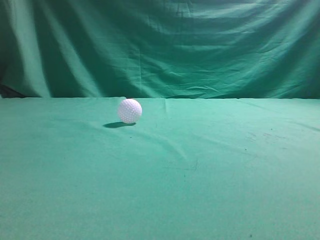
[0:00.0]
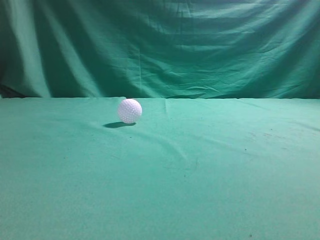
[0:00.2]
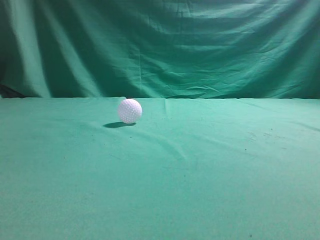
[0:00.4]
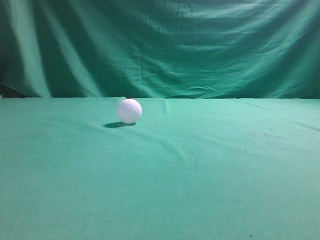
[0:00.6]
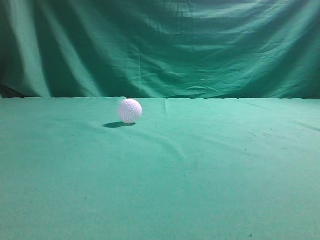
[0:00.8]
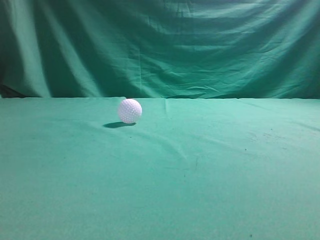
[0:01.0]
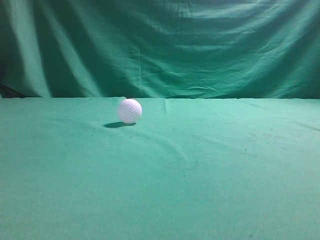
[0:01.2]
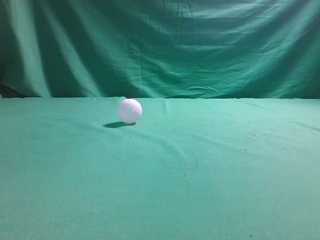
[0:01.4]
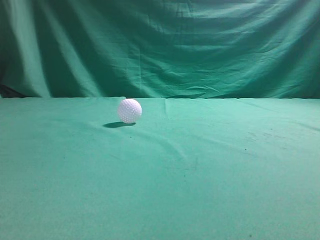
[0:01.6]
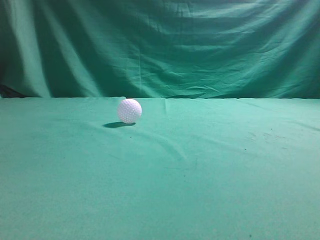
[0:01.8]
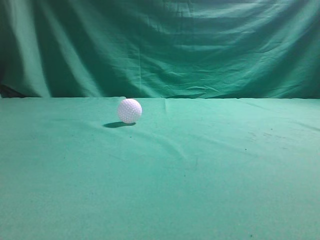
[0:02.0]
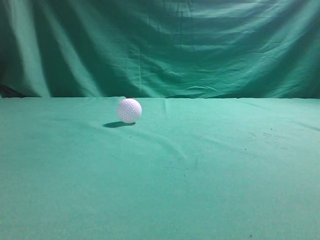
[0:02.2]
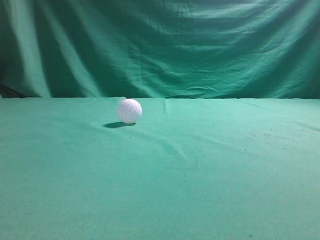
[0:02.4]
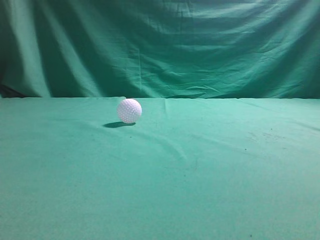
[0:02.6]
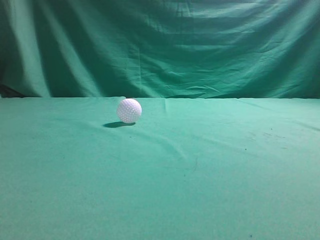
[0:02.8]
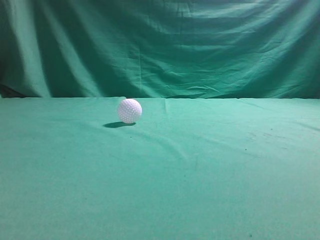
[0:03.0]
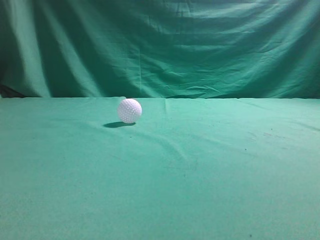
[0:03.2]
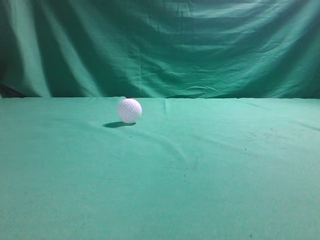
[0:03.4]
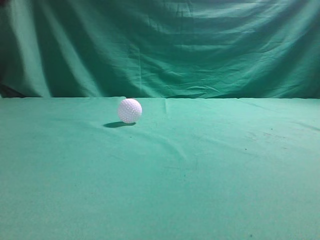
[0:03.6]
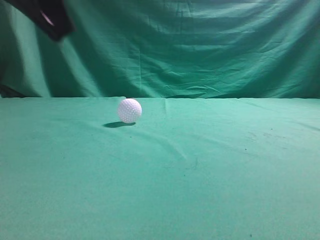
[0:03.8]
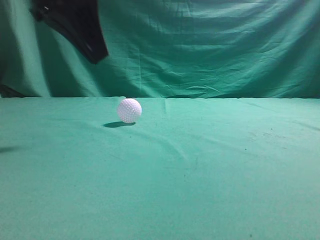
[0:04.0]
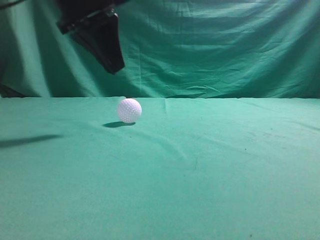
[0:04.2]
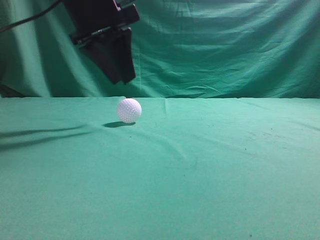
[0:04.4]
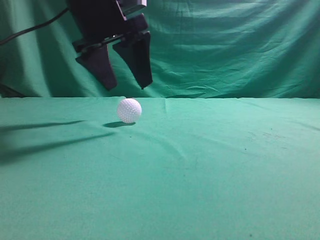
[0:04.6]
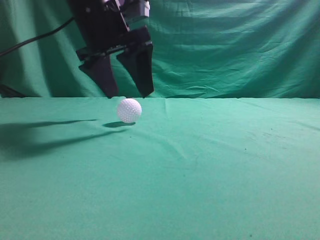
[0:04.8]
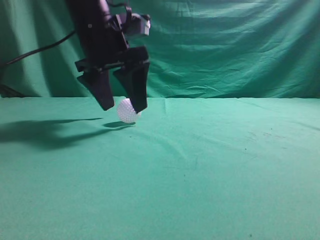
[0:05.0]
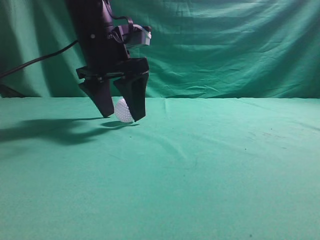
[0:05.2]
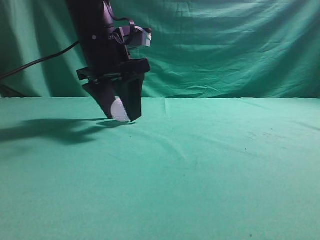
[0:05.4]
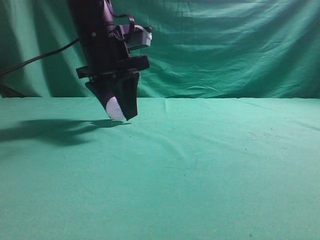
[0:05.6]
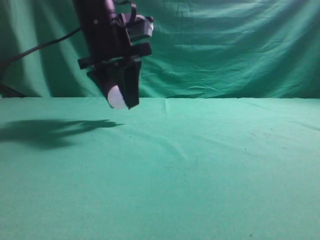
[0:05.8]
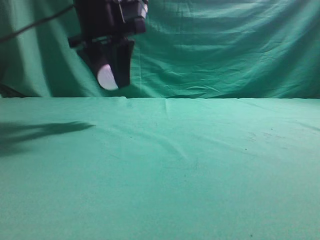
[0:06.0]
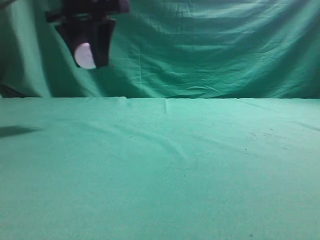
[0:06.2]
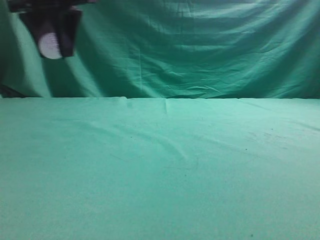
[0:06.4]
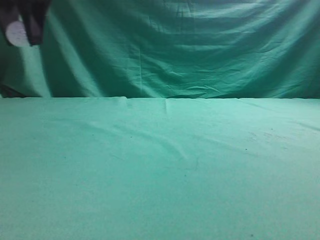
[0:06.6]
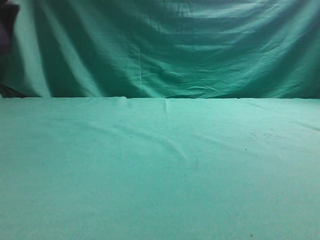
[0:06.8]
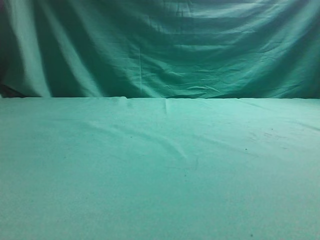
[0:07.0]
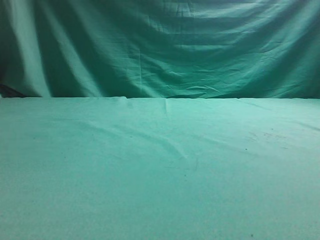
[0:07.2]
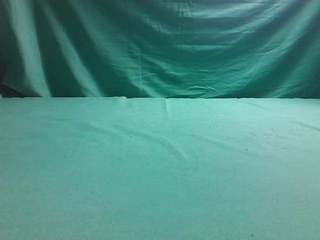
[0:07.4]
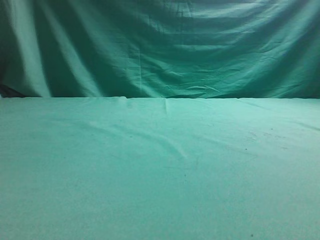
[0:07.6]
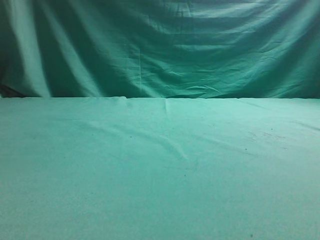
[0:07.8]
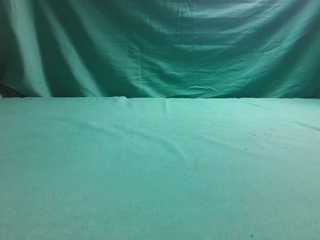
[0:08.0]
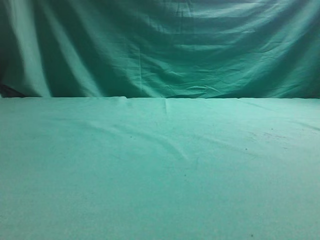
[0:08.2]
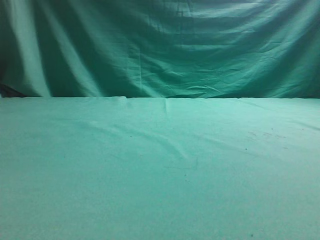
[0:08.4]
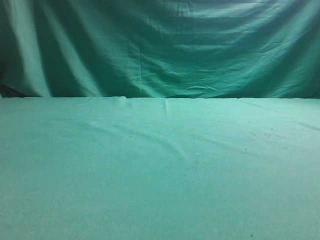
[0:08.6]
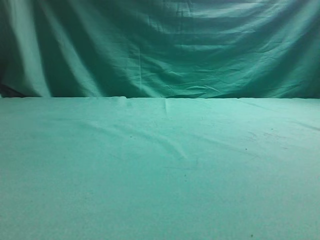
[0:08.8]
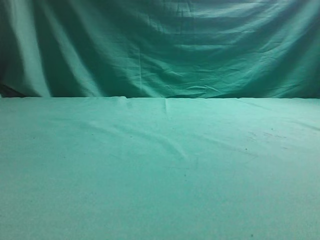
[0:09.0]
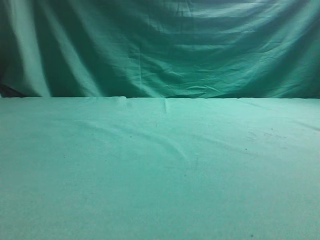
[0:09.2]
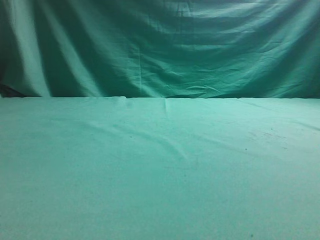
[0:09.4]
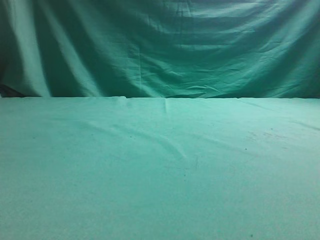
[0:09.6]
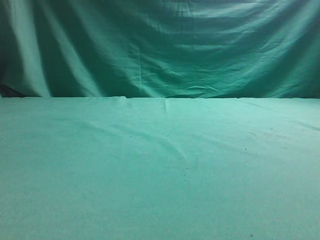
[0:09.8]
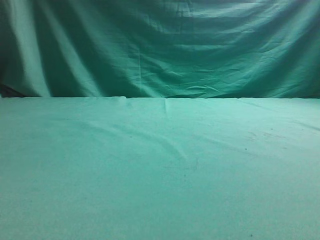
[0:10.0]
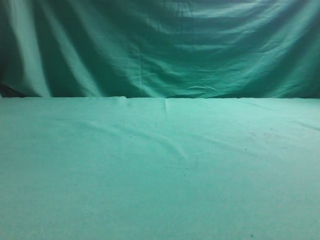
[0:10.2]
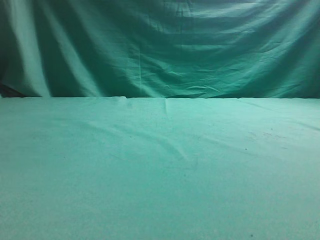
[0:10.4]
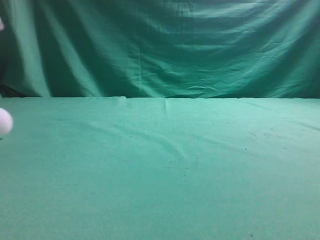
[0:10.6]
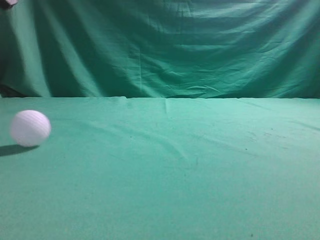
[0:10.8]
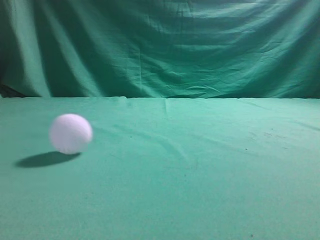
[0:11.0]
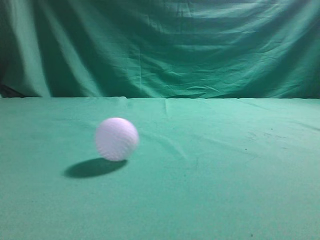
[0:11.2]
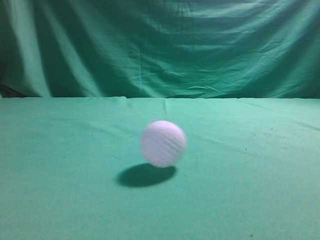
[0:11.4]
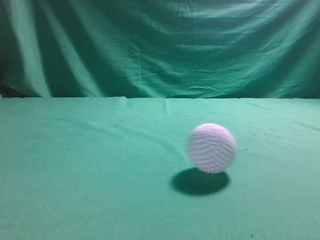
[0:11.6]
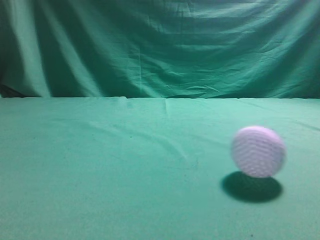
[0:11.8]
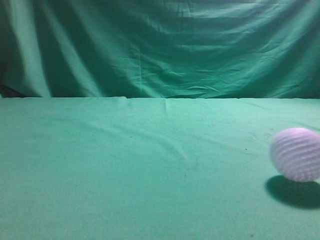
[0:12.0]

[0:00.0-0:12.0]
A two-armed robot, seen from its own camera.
Task of the whole recording: pick up the ball and place it on the plate, then pick up the ball from the plate and put it in the center of the table.
Step, 0:00.0 to 0:06.0: Grab the spherical object with your left arm.
Step, 0:06.2 to 0:10.0: Place the sphere on the white object.
0:03.0 to 0:04.4: The left gripper moves forward and to the right, roughly 30 cm, and opens.
0:04.4 to 0:06.0: The left gripper opens and closes again.
0:06.0 to 0:07.6: The left gripper heads to the left, covering approximately 25 cm.

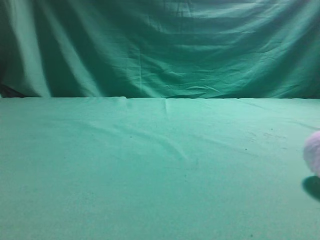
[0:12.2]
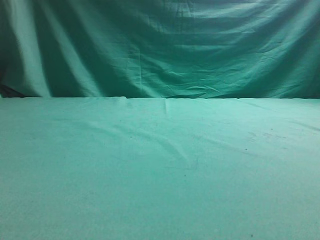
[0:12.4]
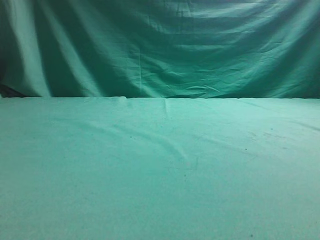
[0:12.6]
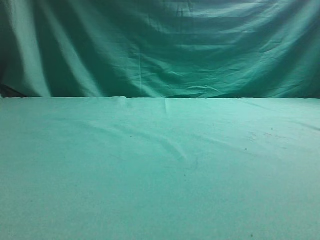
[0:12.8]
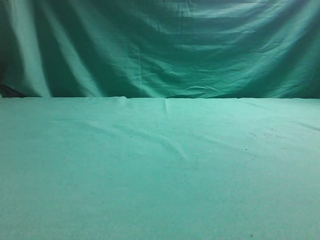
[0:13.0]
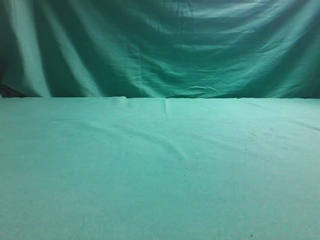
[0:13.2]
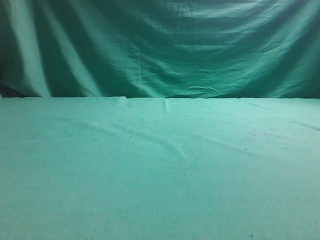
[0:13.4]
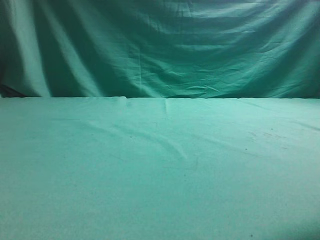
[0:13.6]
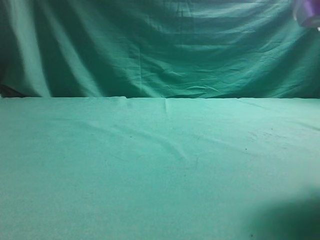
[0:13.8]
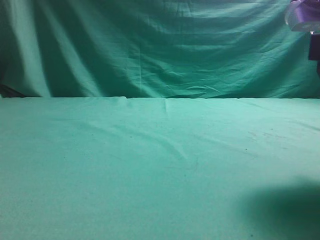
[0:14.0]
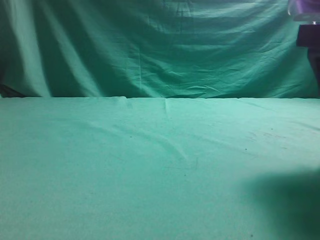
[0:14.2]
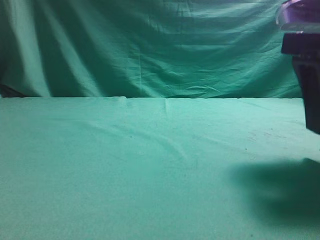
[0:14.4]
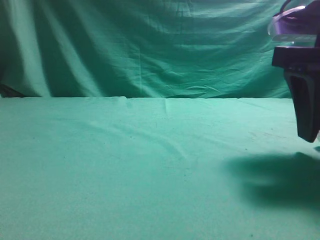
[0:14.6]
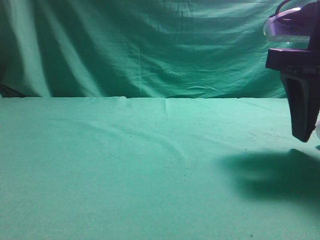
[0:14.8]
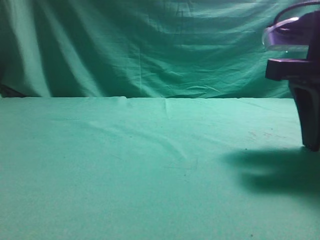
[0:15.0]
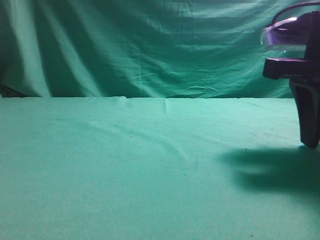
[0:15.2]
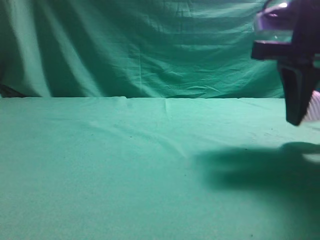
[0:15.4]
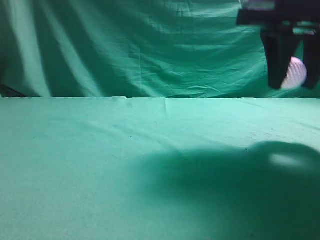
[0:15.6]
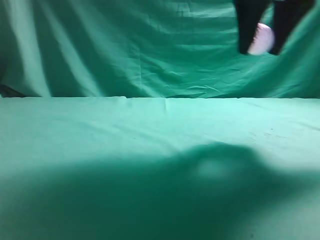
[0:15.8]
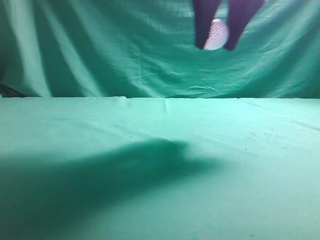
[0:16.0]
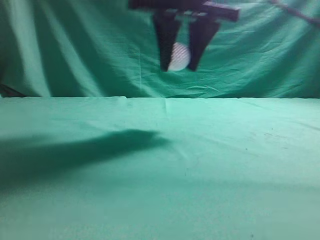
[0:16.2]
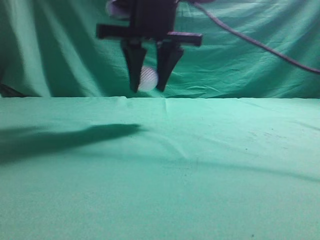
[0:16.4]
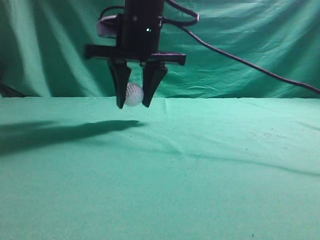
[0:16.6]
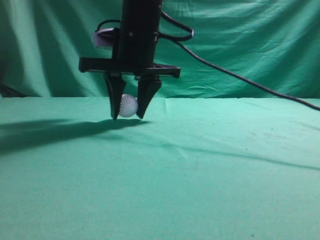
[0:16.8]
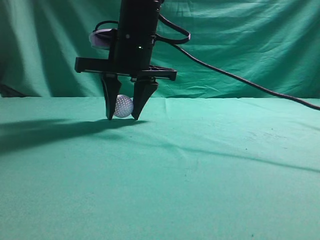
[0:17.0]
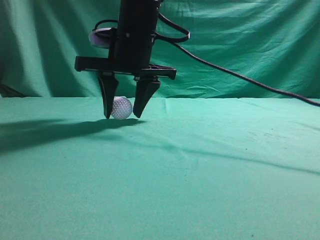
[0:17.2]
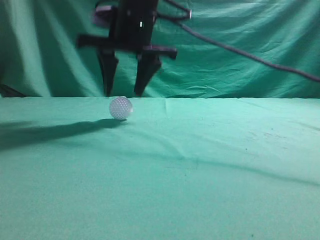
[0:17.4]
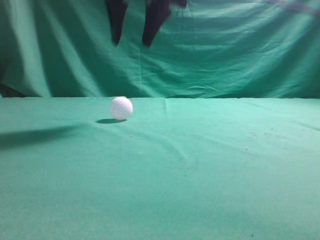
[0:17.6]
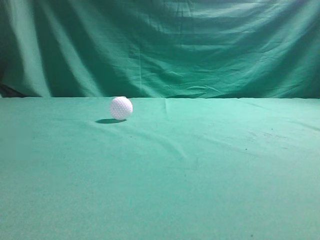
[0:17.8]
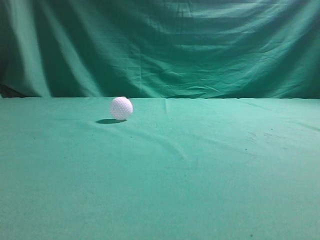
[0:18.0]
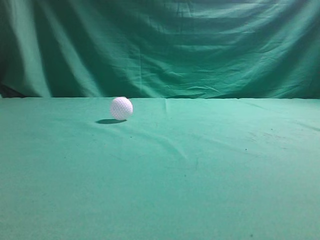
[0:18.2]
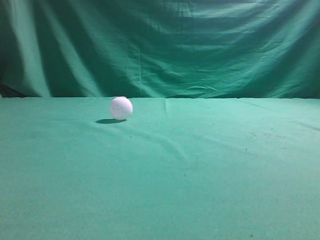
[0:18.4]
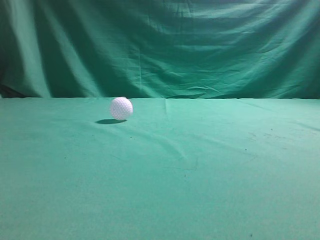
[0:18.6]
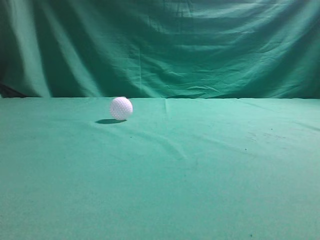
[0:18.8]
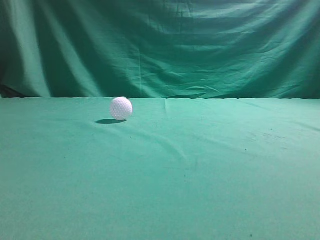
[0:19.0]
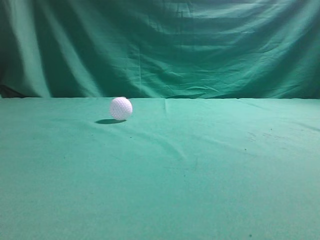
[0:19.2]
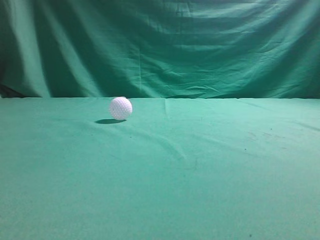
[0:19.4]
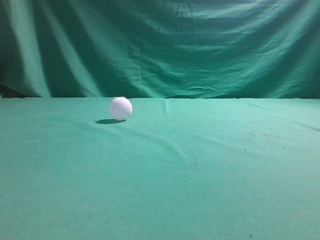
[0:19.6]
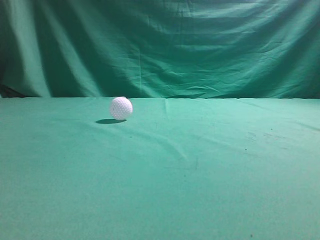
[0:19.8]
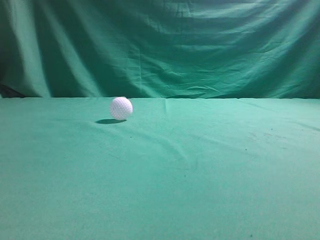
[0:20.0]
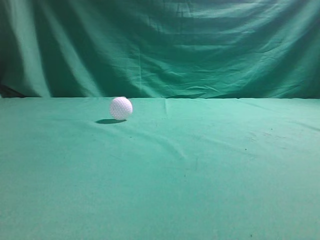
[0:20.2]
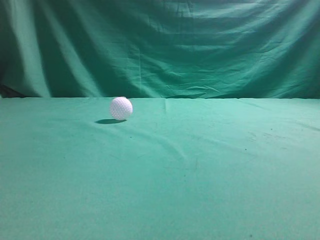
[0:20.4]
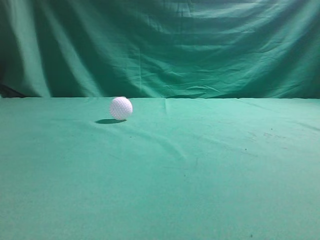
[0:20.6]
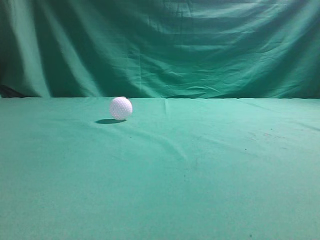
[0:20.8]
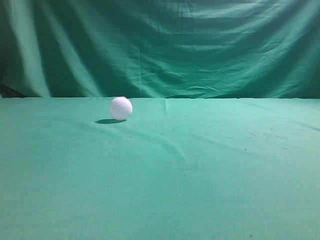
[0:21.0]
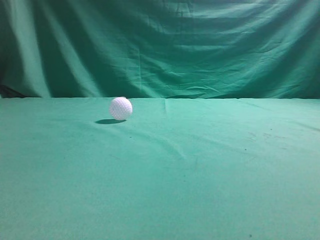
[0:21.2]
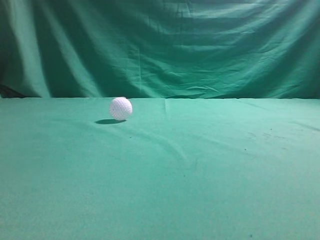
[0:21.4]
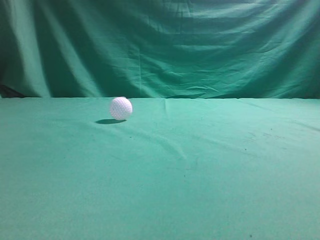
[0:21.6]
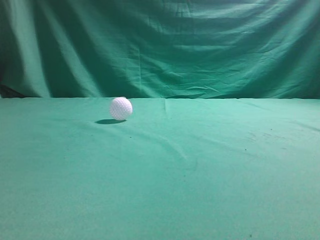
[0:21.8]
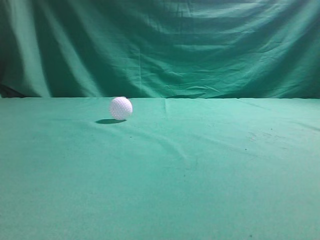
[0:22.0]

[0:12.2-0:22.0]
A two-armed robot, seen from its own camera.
Task of the whole recording: pick up the ball and place it on the plate, then pick up the ball from the plate and put it in the center of the table.
Step, 0:12.2 to 0:15.4: Grab the rolling spherical object.
Step, 0:15.8 to 0:17.4: Put the picked-up object on the table.
0:12.2 to 0:13.6: The right gripper moves downward, forward and to the left, approximately 10 cm, and opens its fingers.
0:13.6 to 0:15.0: The right gripper travels forward by approximately 10 cm.
0:15.0 to 0:16.4: The right gripper travels to the left and forward by some 20 cm.
0:16.4 to 0:17.8: The right gripper travels upward by roughly 15 cm.
